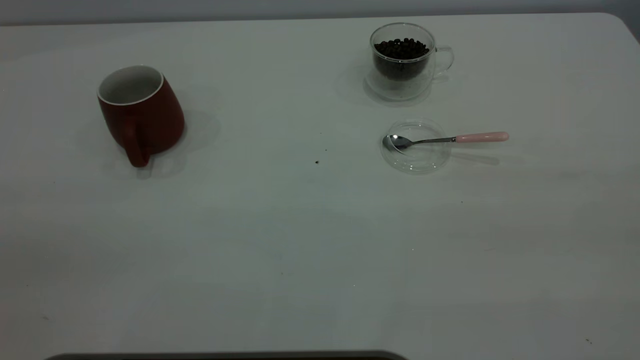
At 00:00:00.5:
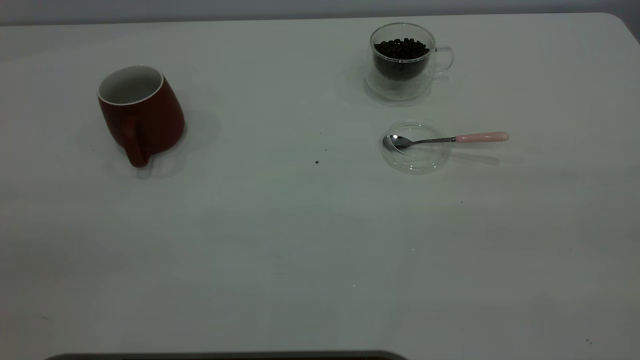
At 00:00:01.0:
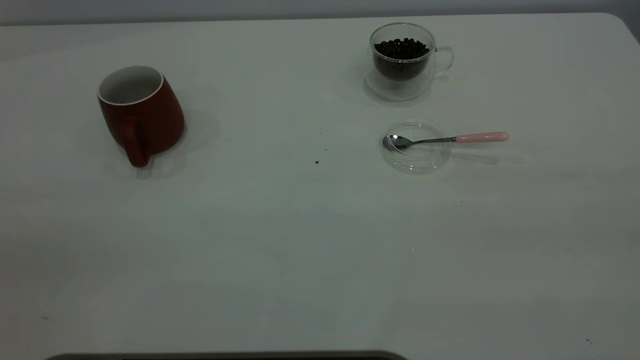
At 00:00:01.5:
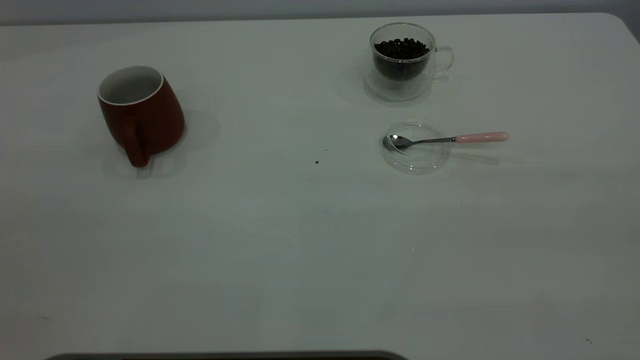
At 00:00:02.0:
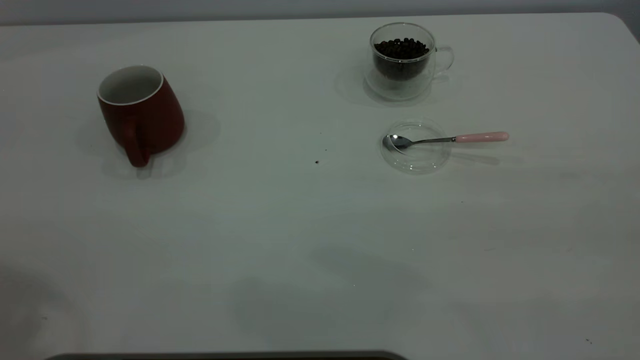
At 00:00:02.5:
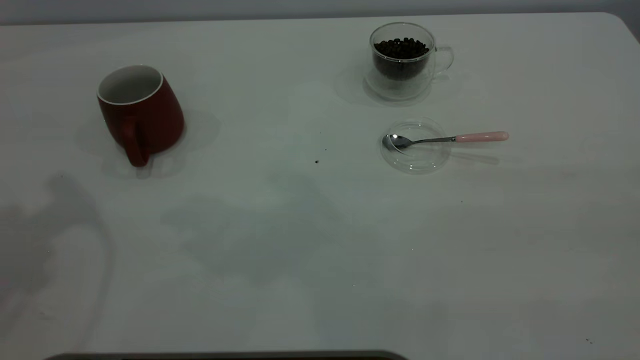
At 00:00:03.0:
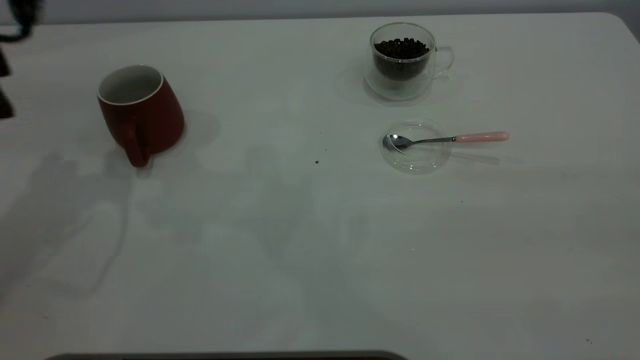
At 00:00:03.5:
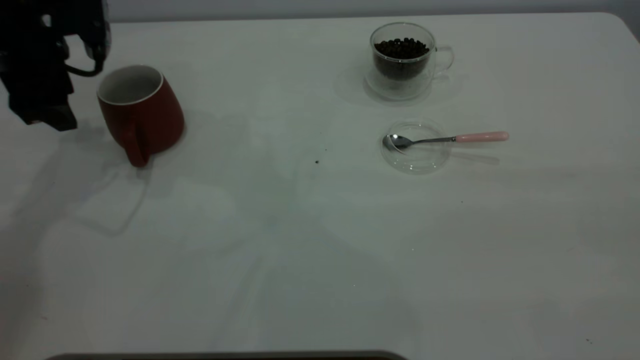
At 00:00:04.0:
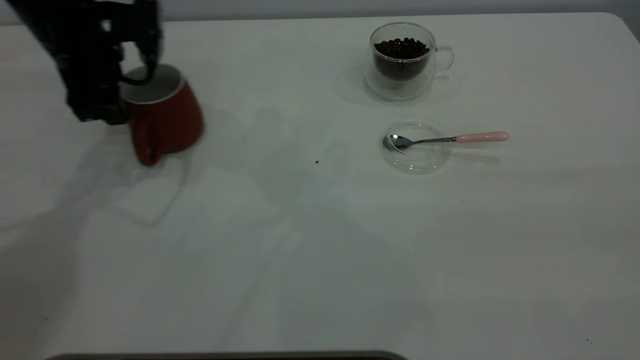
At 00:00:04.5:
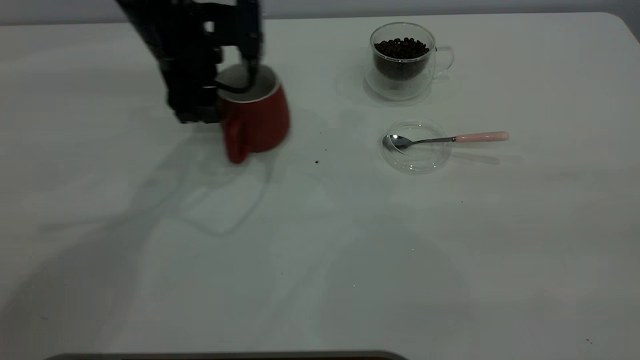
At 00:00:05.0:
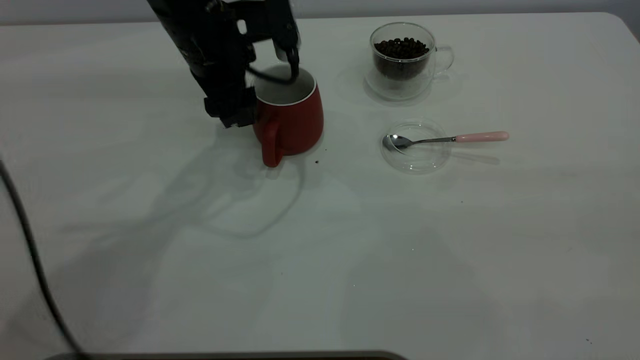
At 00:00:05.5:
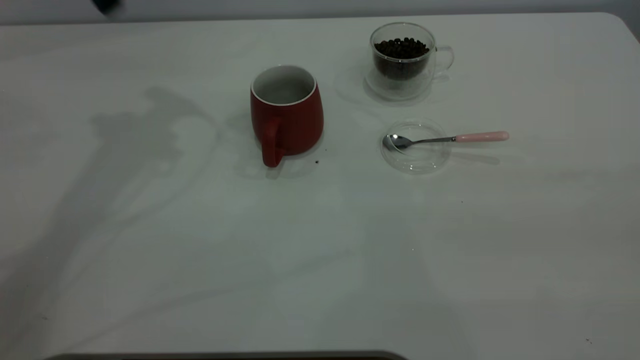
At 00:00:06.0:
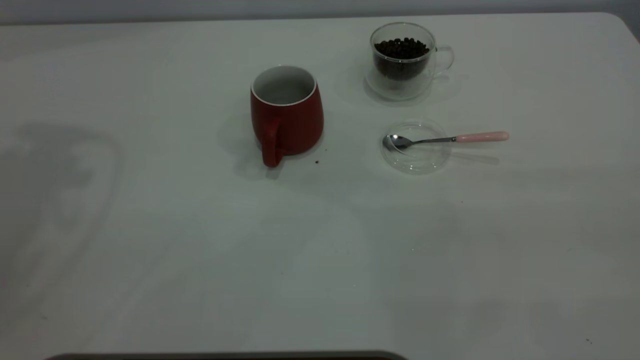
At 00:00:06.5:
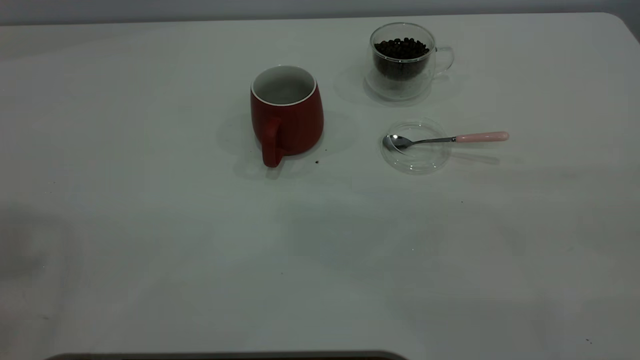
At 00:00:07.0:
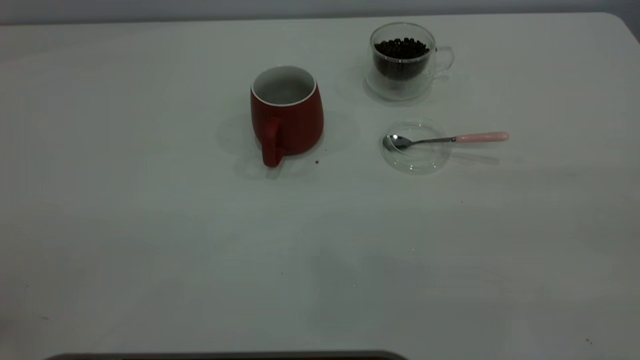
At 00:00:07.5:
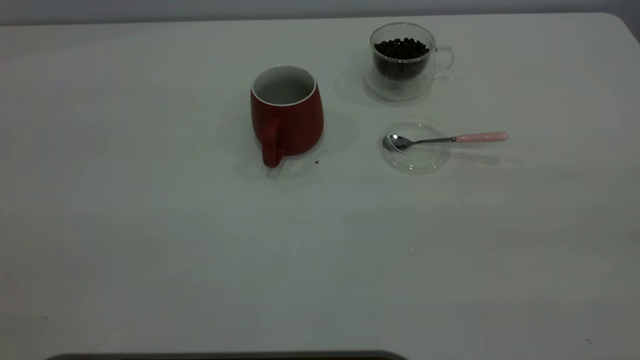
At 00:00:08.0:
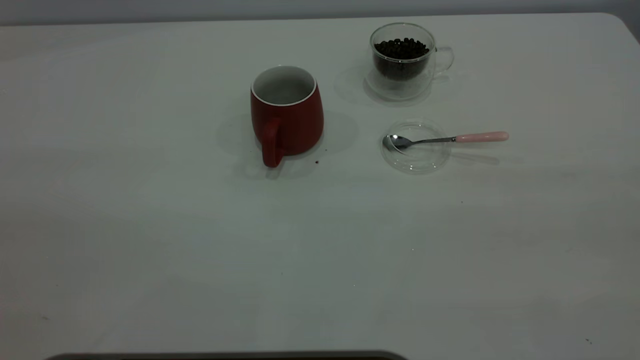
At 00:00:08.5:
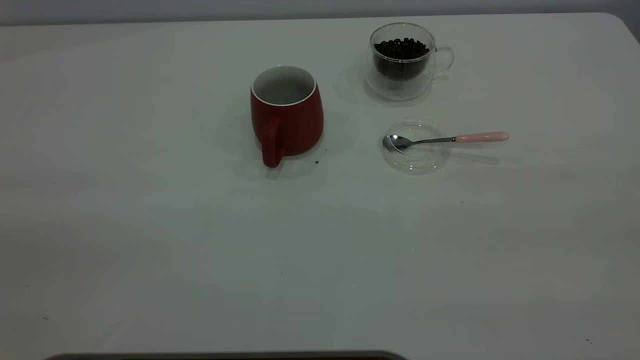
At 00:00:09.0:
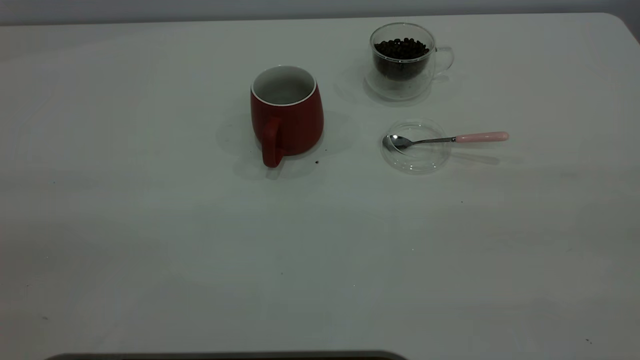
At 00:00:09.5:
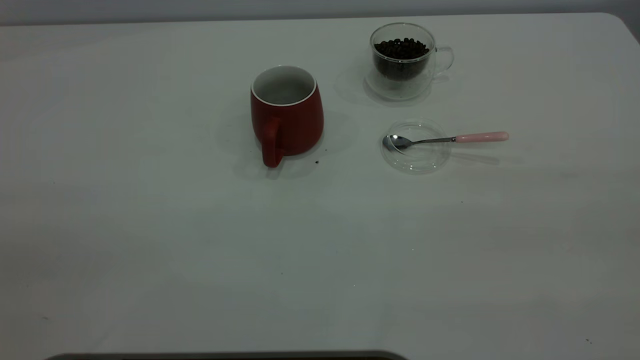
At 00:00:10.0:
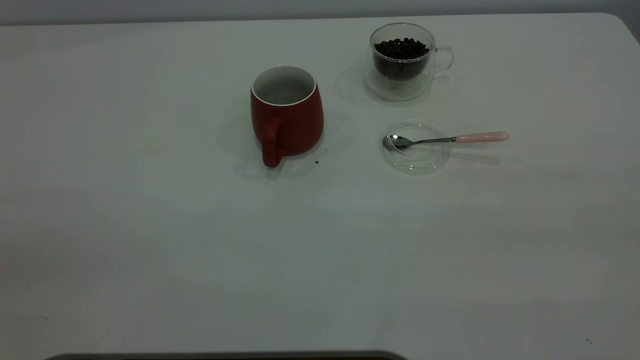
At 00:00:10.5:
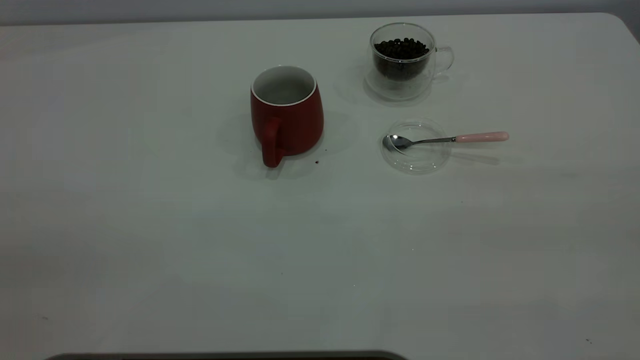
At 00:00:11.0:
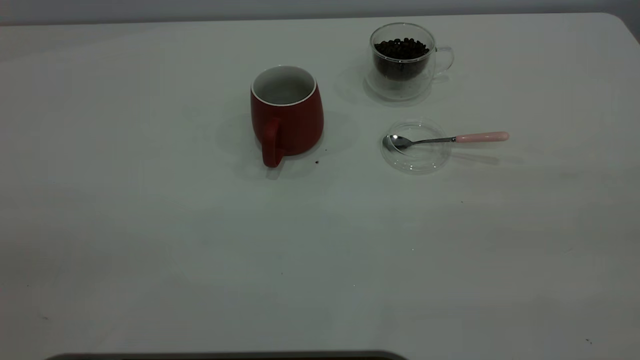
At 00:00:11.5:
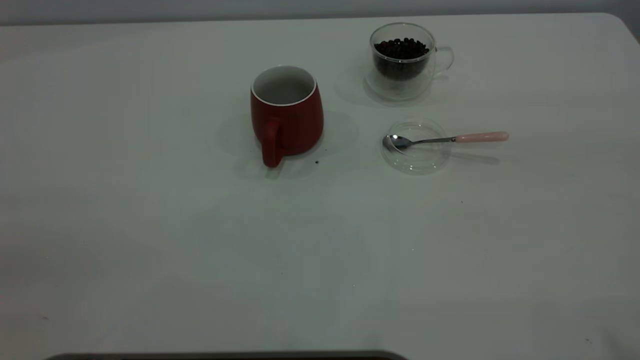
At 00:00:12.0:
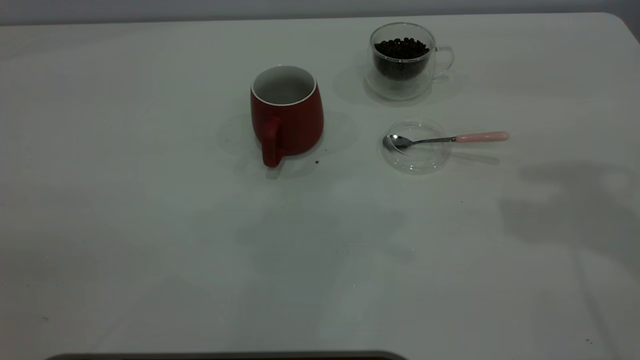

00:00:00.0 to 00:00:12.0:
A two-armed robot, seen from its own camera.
Task of the whole recording: the left gripper place the red cup in the center of the table, the right gripper take the pink spoon from the cup lid and scoop out the coffee beans from the coffee cup and put them into the red cup, the right gripper put the spoon back into the cup lid.
Step, 00:00:00.0 to 00:00:05.0: Move the cup to the center of view.
00:00:02.0 to 00:00:04.0: The left gripper goes approximately 40 cm downward and forward.
00:00:04.0 to 00:00:06.0: The left gripper moves upward, approximately 30 cm.

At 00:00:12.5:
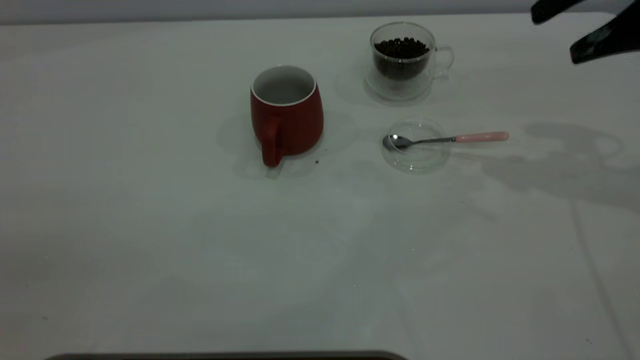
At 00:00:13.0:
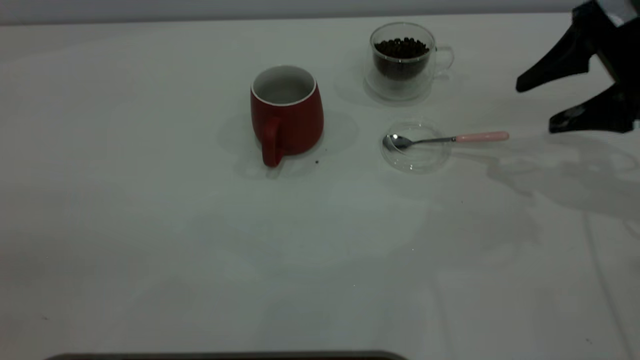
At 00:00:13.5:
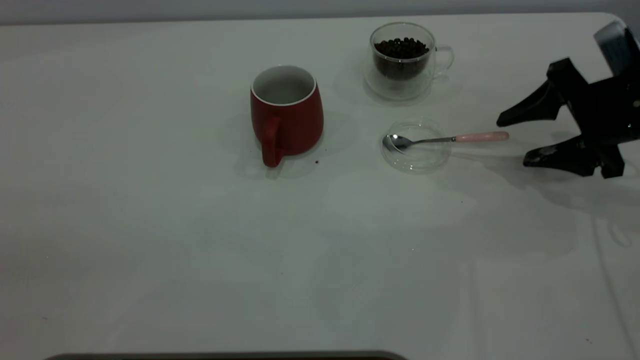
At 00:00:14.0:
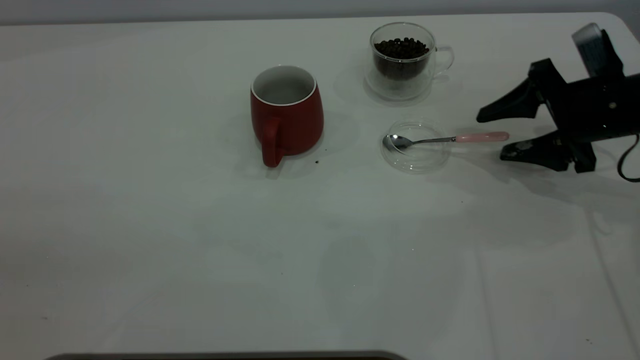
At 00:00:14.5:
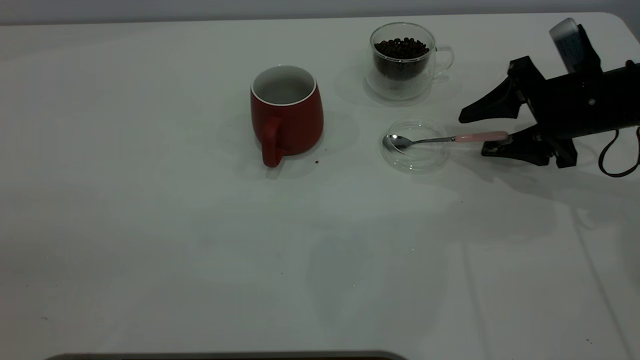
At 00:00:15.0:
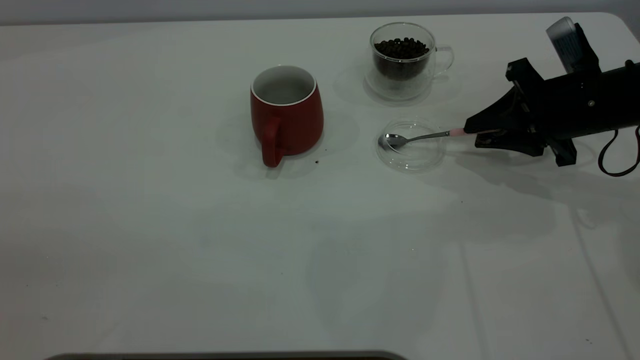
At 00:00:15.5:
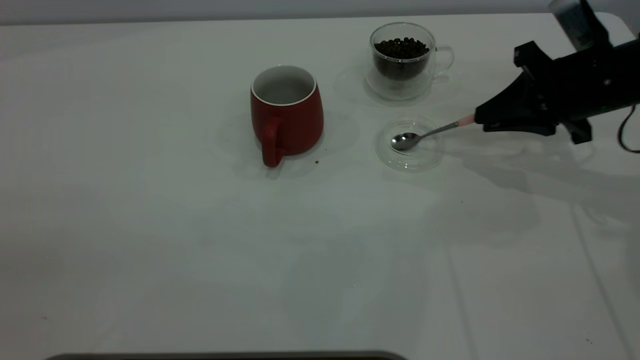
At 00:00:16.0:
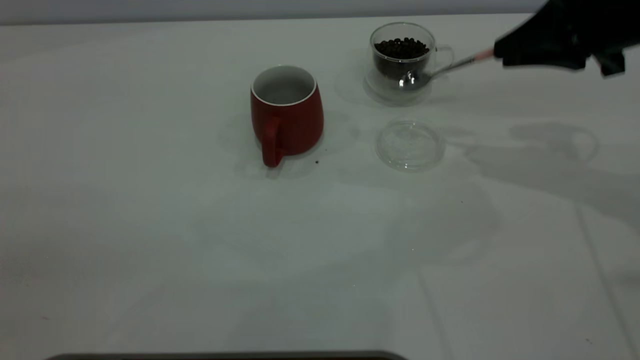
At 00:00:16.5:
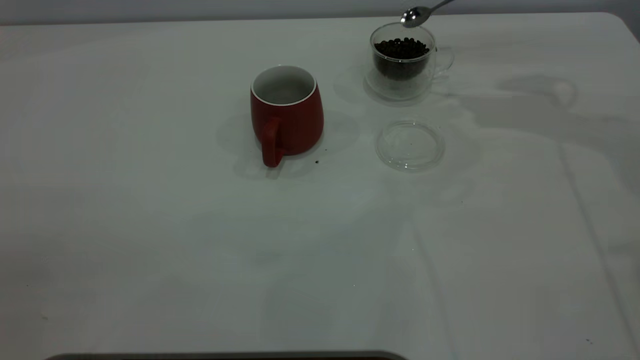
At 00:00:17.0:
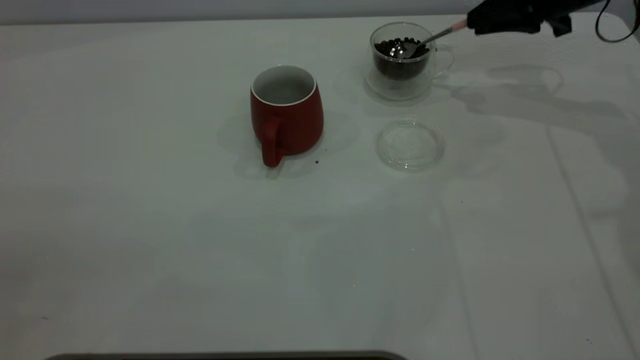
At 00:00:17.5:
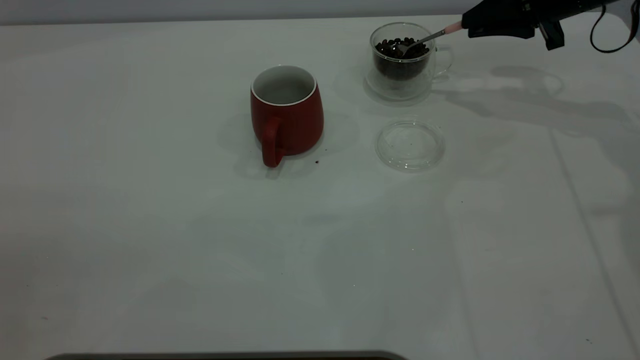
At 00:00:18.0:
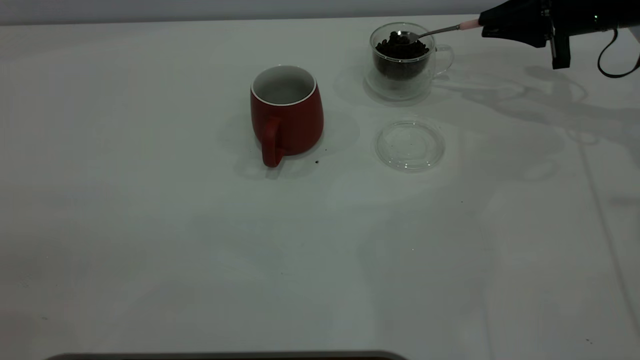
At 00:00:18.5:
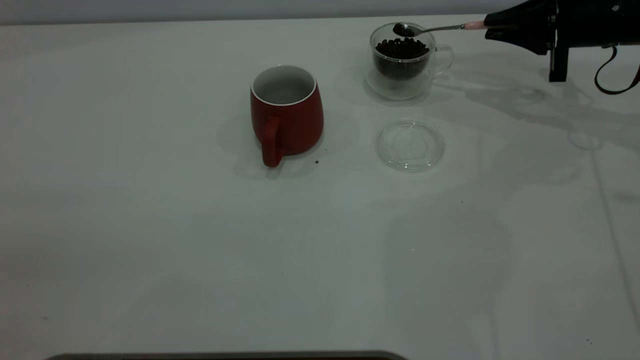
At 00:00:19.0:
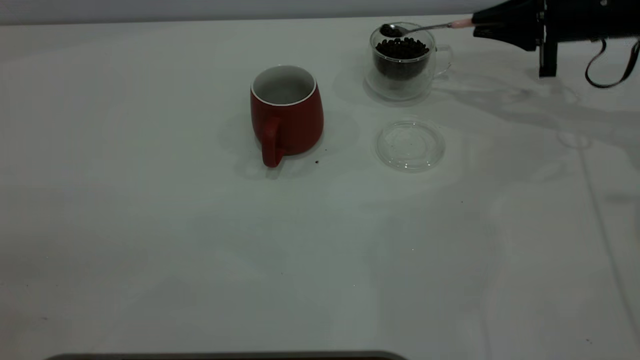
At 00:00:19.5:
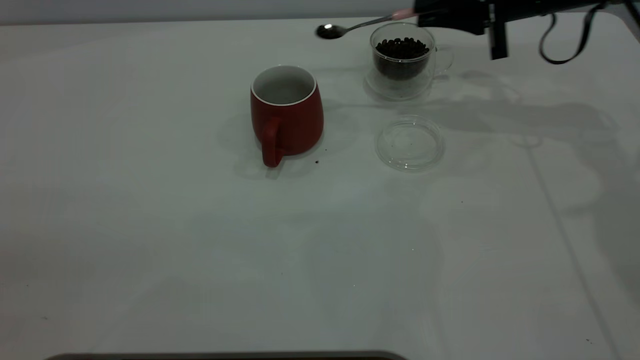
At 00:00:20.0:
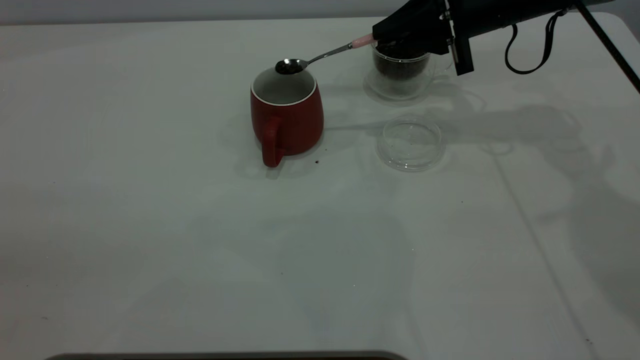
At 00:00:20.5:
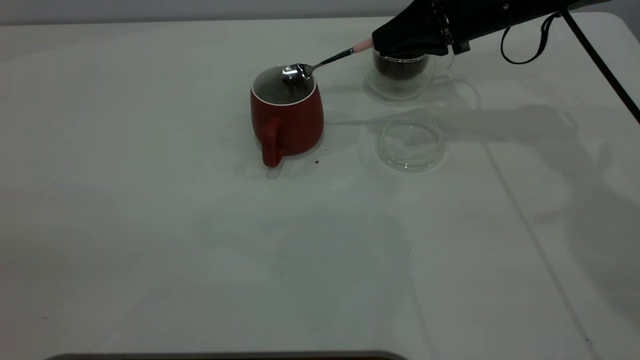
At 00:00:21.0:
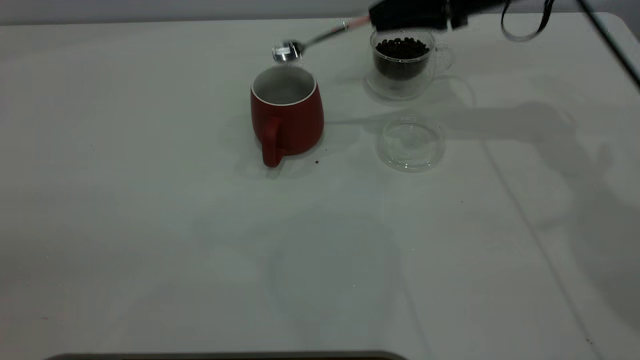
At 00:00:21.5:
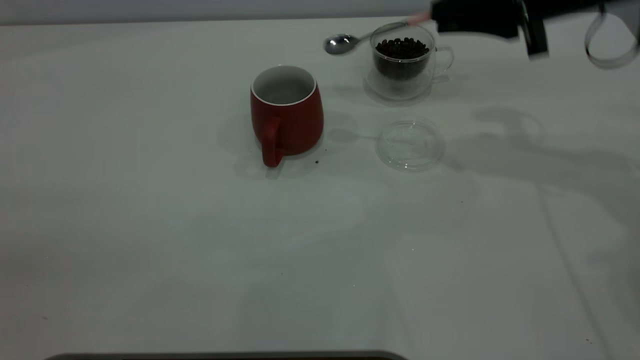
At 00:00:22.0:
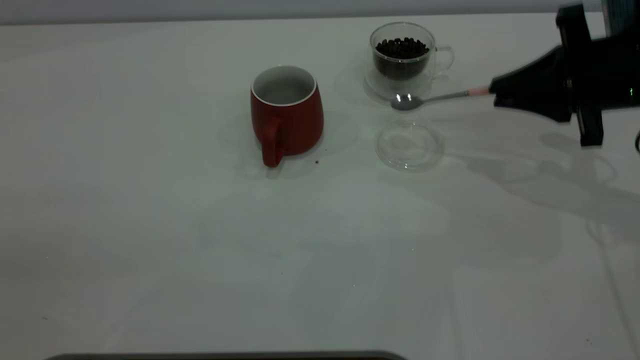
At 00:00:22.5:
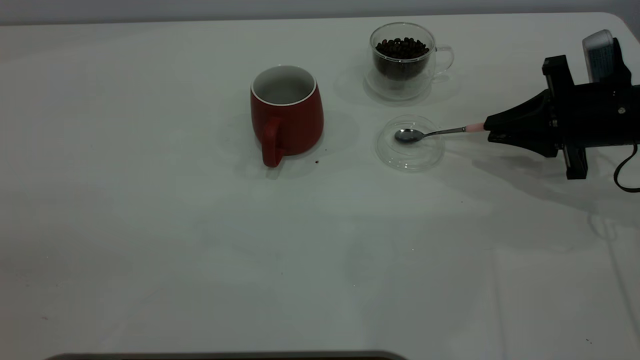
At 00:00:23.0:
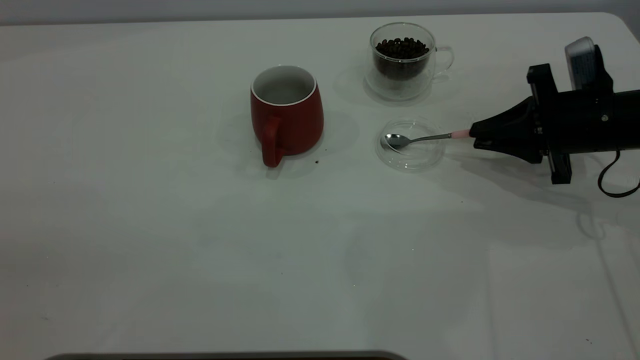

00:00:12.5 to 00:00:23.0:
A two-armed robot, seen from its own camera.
Task of the whole recording: the left gripper place the red cup in the center of the table, the right gripper take the pink spoon from the cup lid and scoop out the coffee beans from the coffee cup and put them into the red cup, the right gripper put the spoon back into the cup lid.
Step, 00:00:12.5 to 00:00:15.5: Pick up the spoon.
Step, 00:00:16.0 to 00:00:20.5: Scoop a spoonful of beans into the cup.
00:00:12.5 to 00:00:14.5: The right gripper is displaced downward by about 15 cm.
00:00:14.5 to 00:00:16.5: The right gripper goes about 15 cm upward and forward, and closes.
00:00:16.5 to 00:00:19.0: The right gripper travels downward by roughly 10 cm.
00:00:19.0 to 00:00:21.0: The right gripper goes roughly 15 cm to the left and upward.
00:00:21.0 to 00:00:23.0: The right gripper moves downward, backward and to the right, approximately 20 cm.
